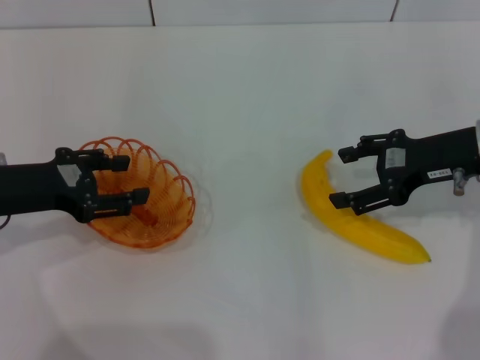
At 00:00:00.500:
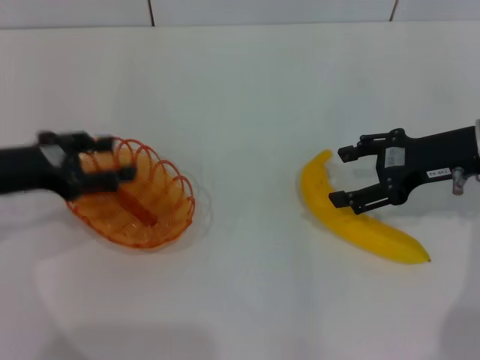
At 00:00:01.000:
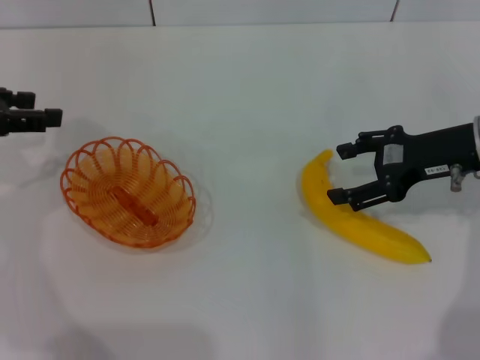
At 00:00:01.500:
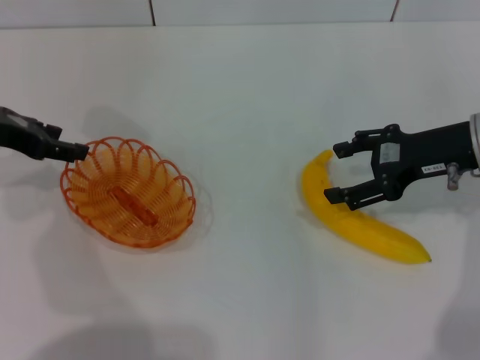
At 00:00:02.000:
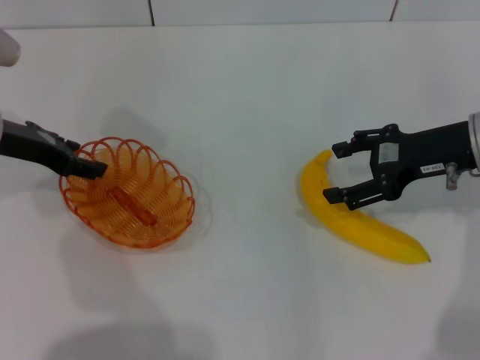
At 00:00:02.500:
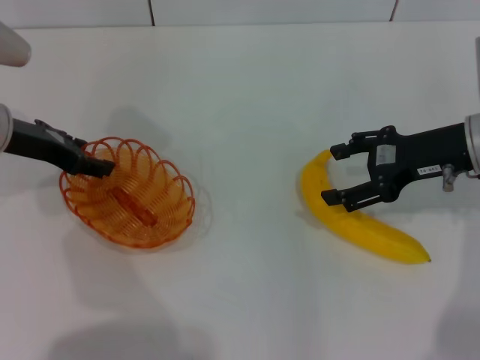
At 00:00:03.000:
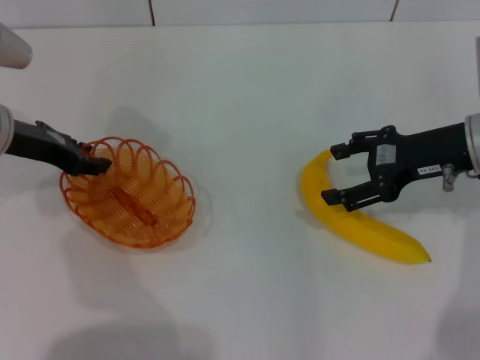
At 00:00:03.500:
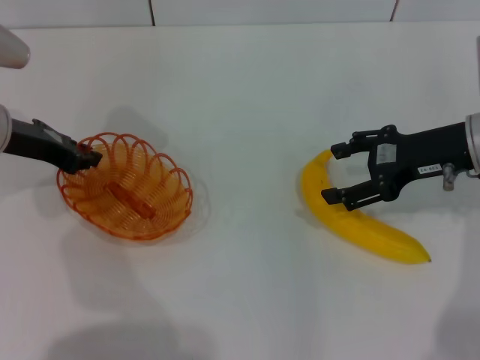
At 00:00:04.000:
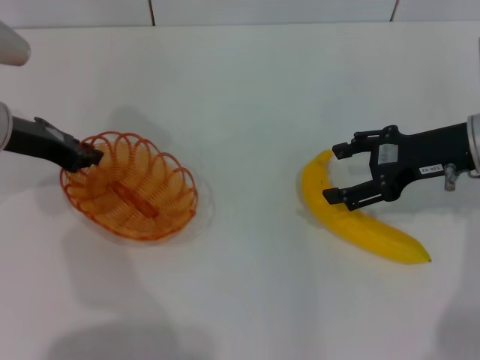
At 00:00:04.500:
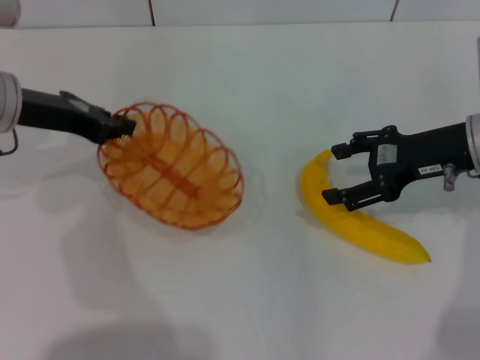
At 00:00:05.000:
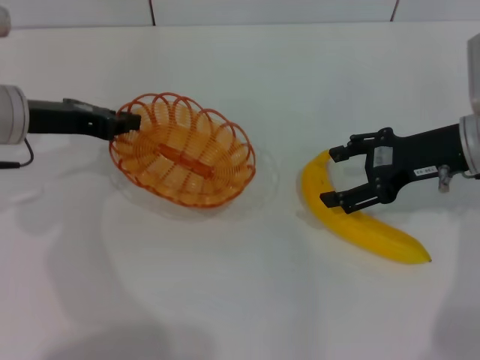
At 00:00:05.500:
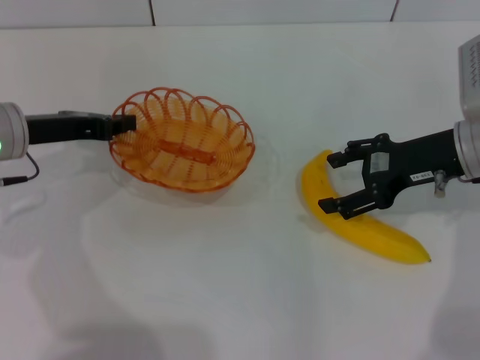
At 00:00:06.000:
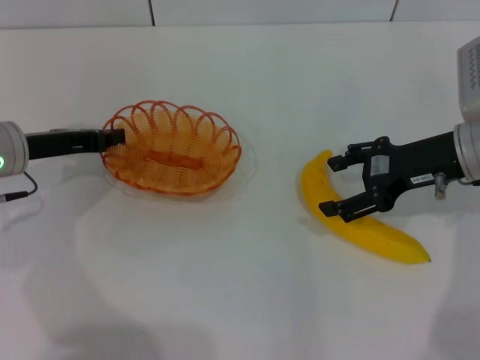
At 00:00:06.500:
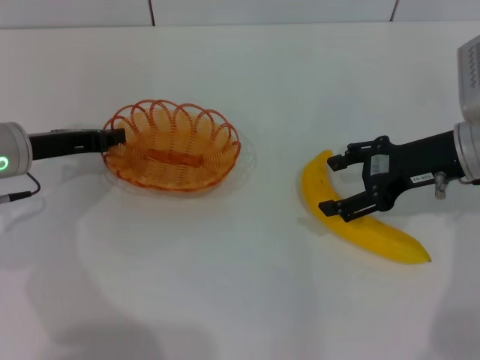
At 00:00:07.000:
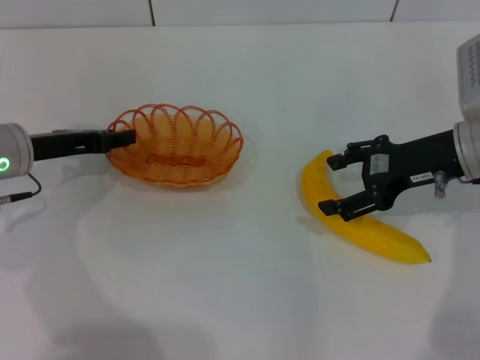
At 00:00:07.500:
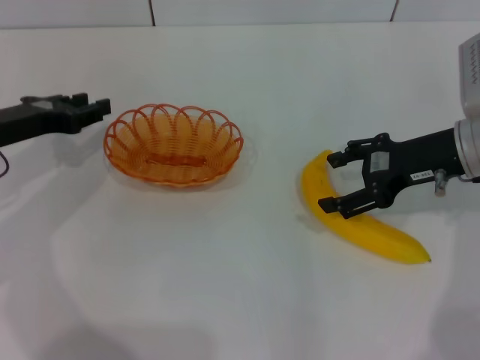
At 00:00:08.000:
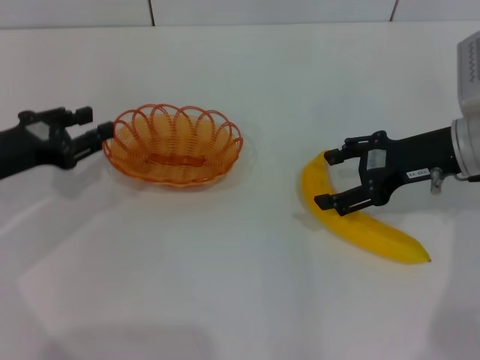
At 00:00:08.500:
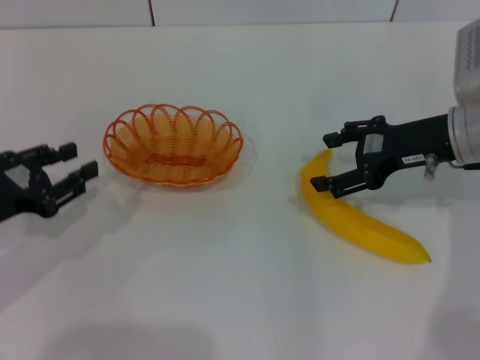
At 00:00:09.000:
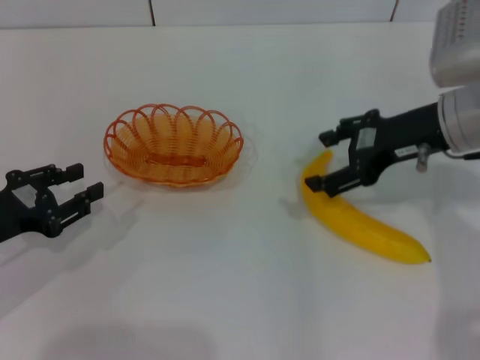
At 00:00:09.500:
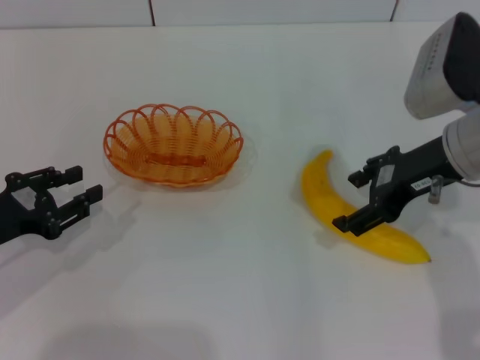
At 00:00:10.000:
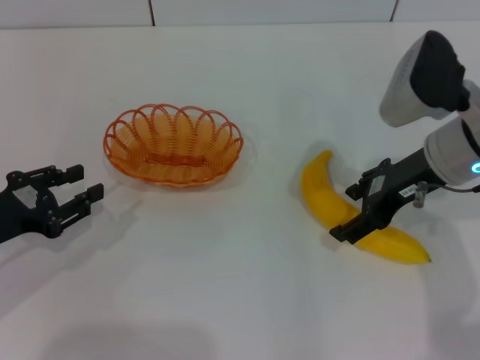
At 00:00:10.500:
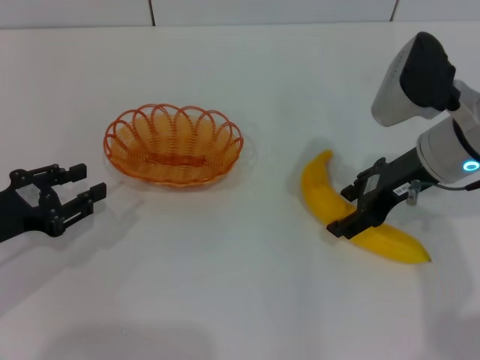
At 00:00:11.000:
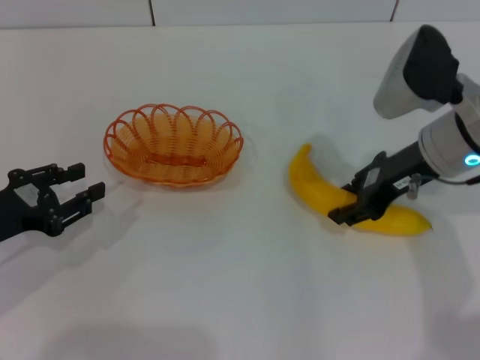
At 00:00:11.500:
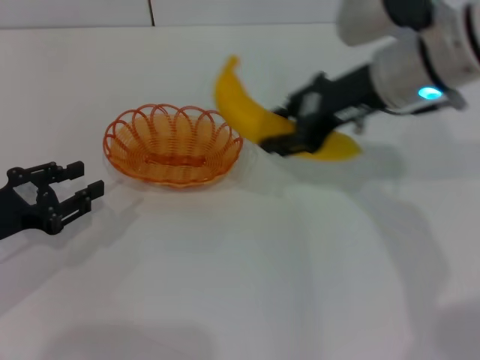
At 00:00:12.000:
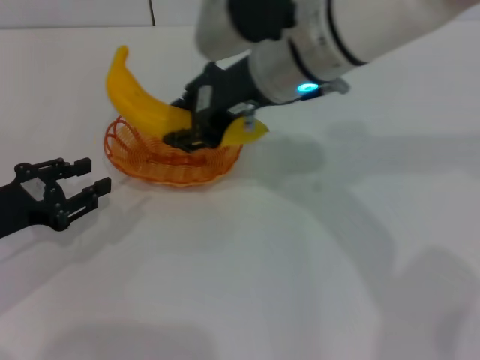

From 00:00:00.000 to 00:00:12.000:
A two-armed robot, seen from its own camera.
Step, from 00:00:00.000 to 00:00:04.000: Pick up the basket with the left gripper.
Step, from 00:00:05.000 to 00:00:07.000: Place the basket in the center of view with the left gripper.
Step, from 00:00:07.500 to 00:00:11.000: Pick up the banana with the right gripper.
From 00:00:00.000 to 00:00:02.000: The left gripper moves forward, roughly 5 cm.
From 00:00:02.000 to 00:00:04.000: The left gripper closes.
From 00:00:04.000 to 00:00:06.000: The left gripper ends up roughly 5 cm from where it was.
From 00:00:06.000 to 00:00:08.000: The left gripper ends up about 5 cm from where it was, and opens.
From 00:00:08.000 to 00:00:10.000: The left gripper is displaced backward by about 5 cm.
From 00:00:10.000 to 00:00:12.000: The right gripper travels to the left and upward by about 15 cm, and closes its fingers.

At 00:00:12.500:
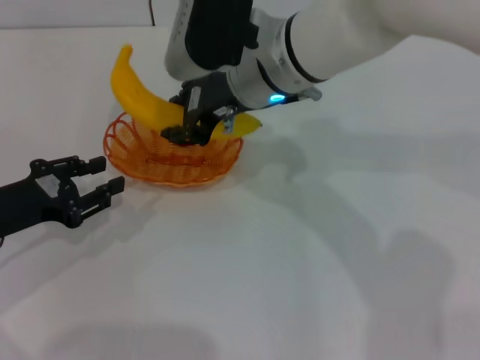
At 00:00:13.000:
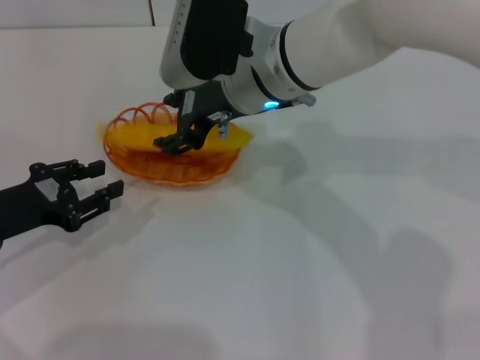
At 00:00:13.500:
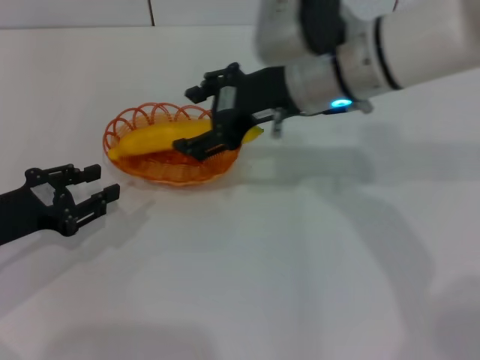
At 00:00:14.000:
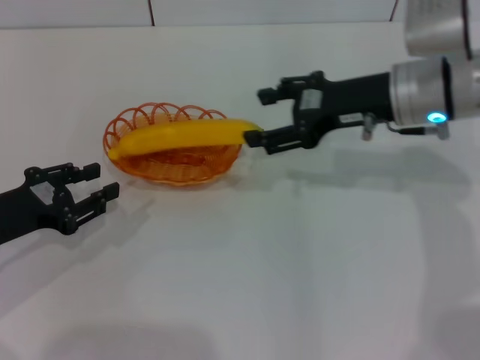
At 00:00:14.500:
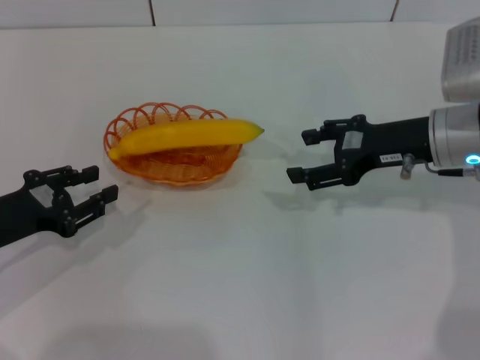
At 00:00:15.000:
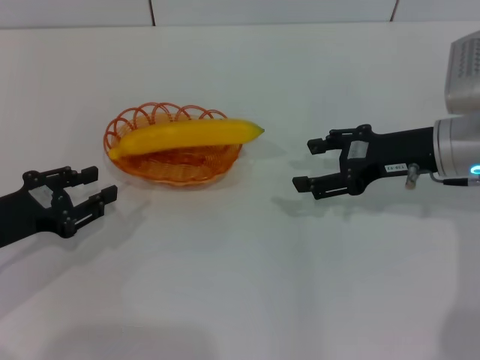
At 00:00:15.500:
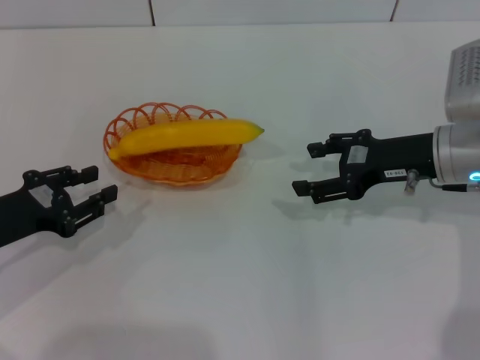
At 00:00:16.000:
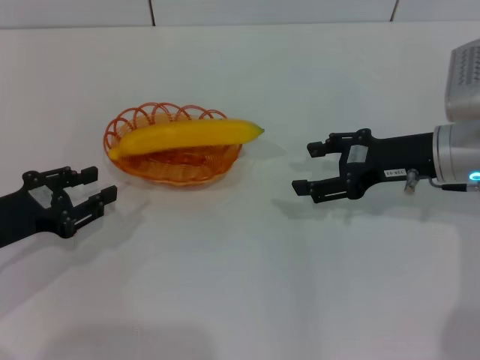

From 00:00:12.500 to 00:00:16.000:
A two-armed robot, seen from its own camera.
From 00:00:12.500 to 00:00:14.500: The right gripper is displaced to the right by some 20 cm, and opens up.
From 00:00:14.500 to 00:00:16.000: The grippers make only small movements.
